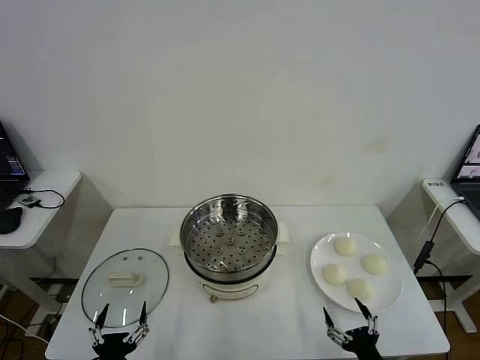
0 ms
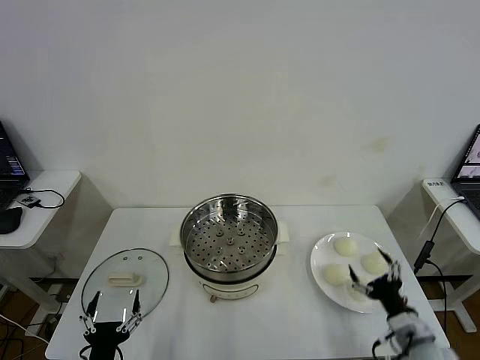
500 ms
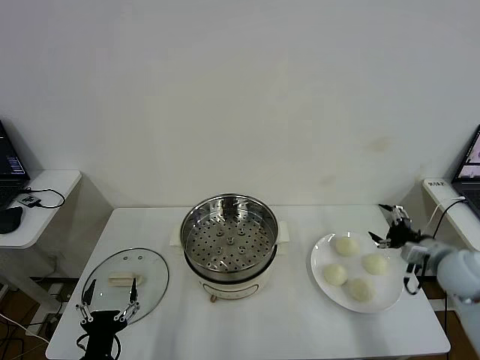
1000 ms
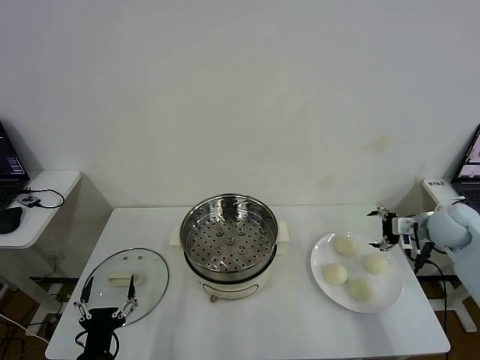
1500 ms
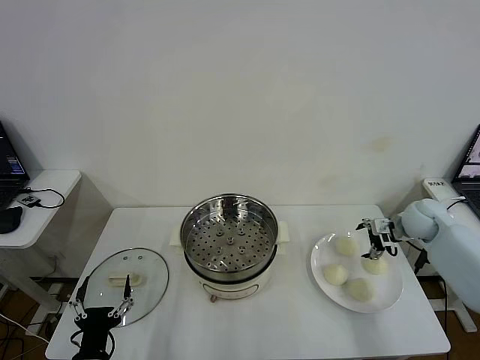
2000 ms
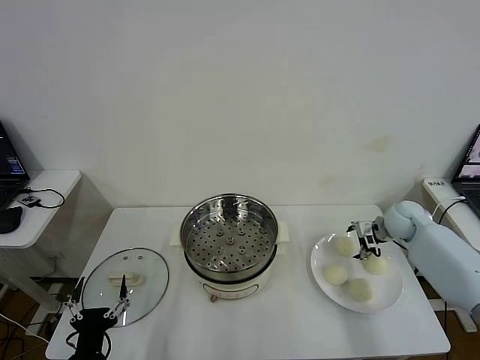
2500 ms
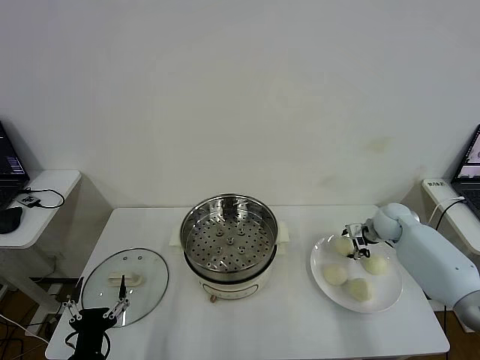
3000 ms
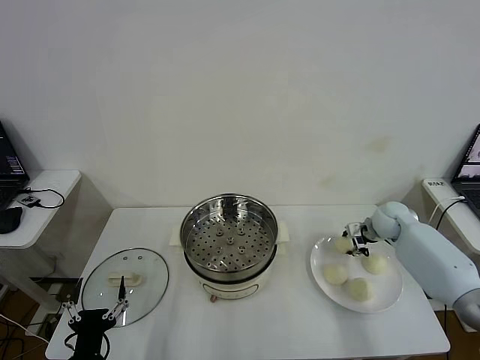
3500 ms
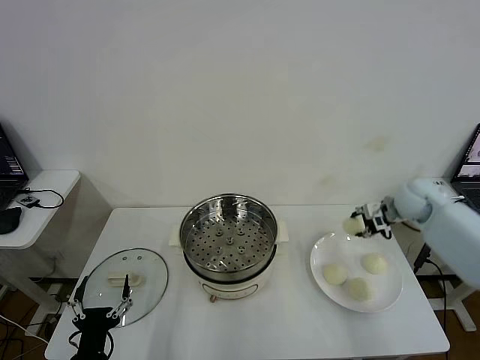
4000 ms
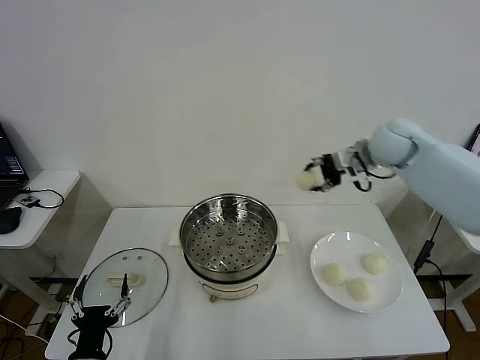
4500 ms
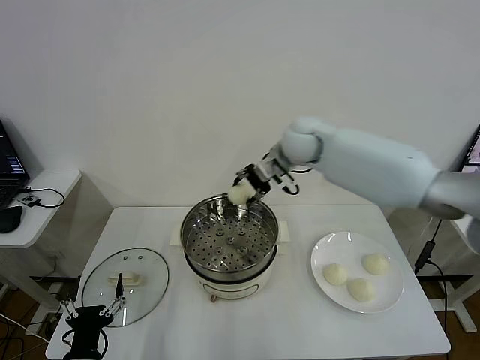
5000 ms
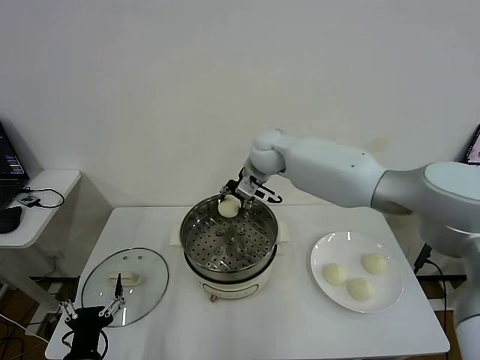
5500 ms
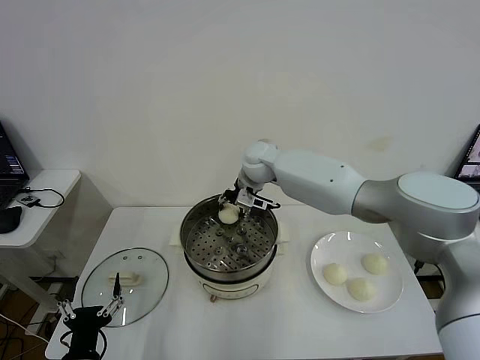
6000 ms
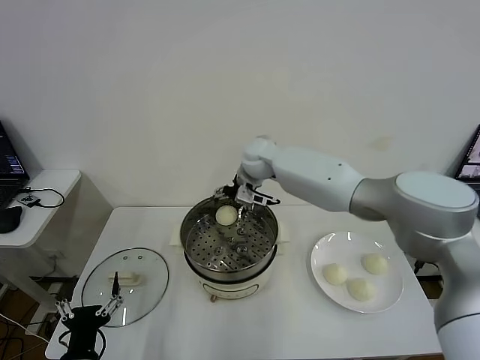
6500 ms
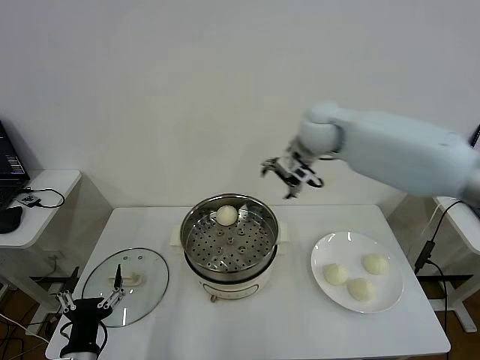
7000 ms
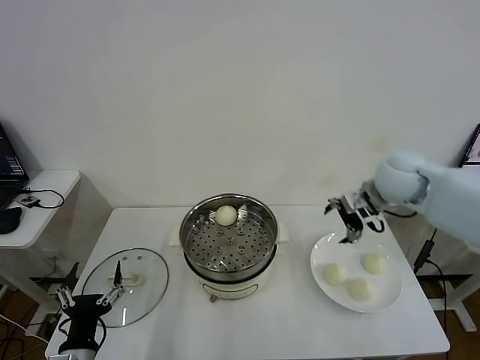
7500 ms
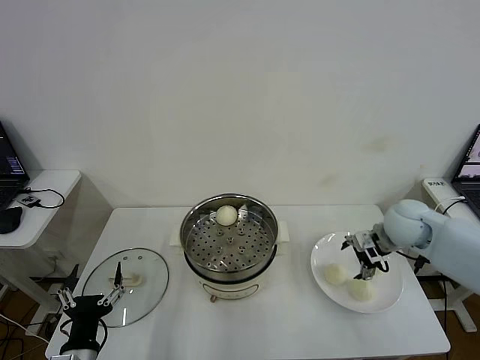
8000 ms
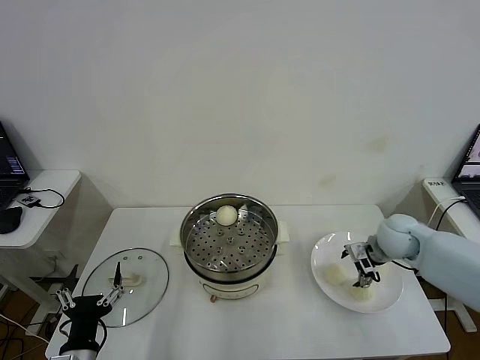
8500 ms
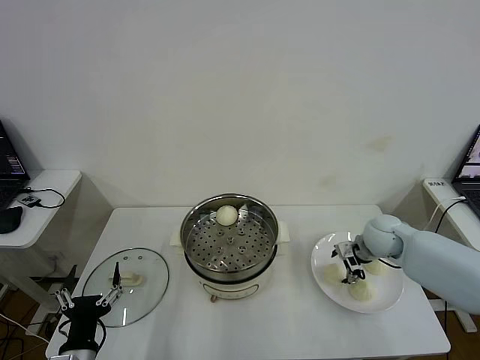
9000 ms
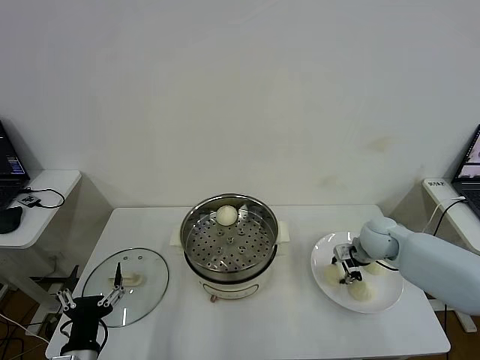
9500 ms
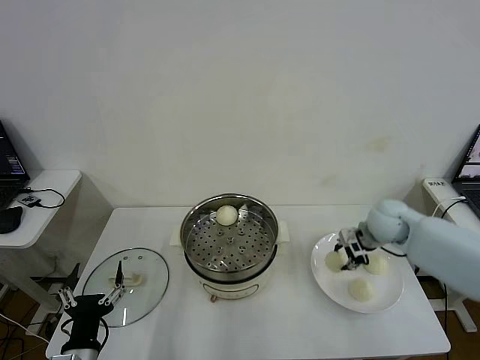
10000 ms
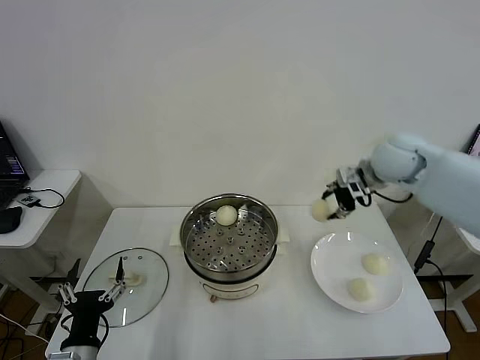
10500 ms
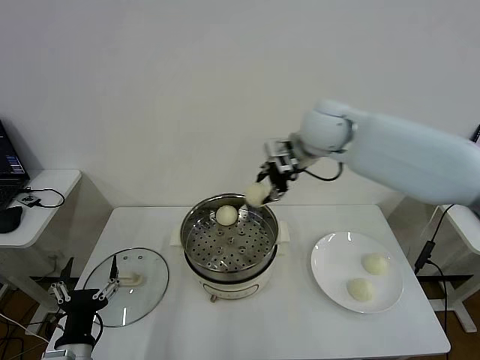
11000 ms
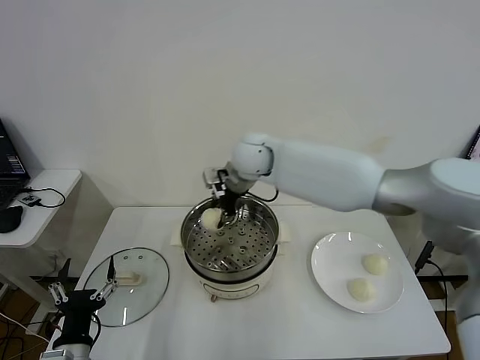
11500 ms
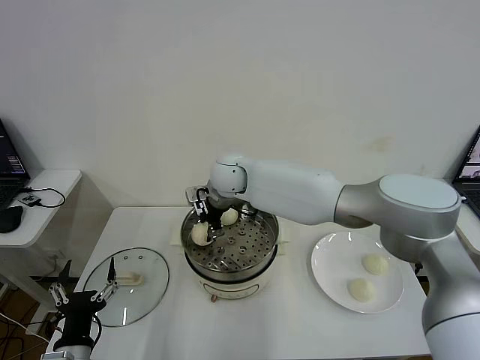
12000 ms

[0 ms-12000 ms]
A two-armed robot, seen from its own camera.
Step, 0 ms to 3000 ms: Grasp the baozi in the plate with right gripper.
Step, 3500 ms to 6000 ms: Place the baozi on the steamer with right gripper.
Step, 6500 ms to 9500 ms: Grasp the baozi in the plate with right gripper.
2000 ms to 4000 ms: The right gripper goes roughly 10 cm upward, and closes its fingers.
4000 ms to 6000 ms: The right gripper heads to the left, covering some 35 cm.
6000 ms to 8000 ms: The right gripper is displaced to the right and backward by some 35 cm, and opens up.
8000 ms to 10000 ms: The right gripper moves some 5 cm downward and comes back, and closes up.
10000 ms to 12000 ms: The right gripper heads to the left, covering about 35 cm.

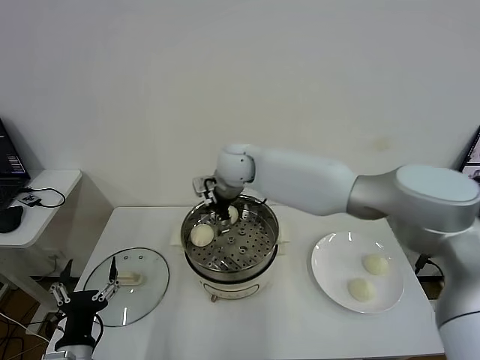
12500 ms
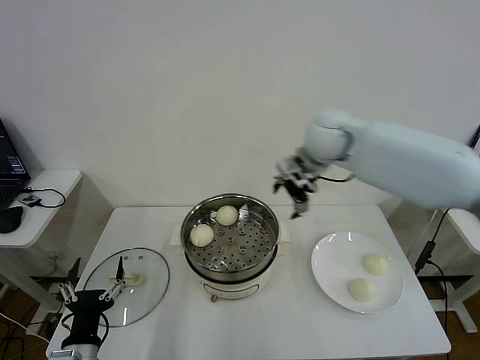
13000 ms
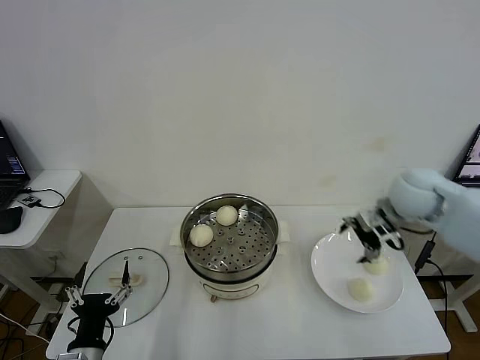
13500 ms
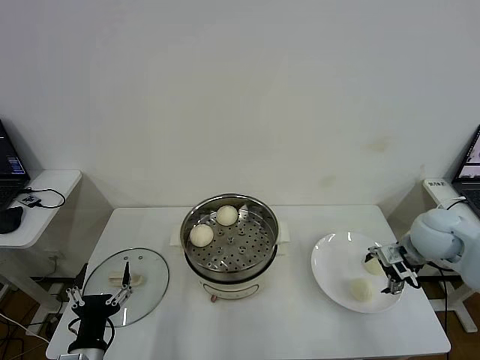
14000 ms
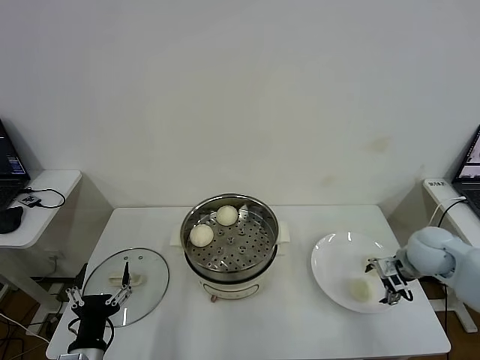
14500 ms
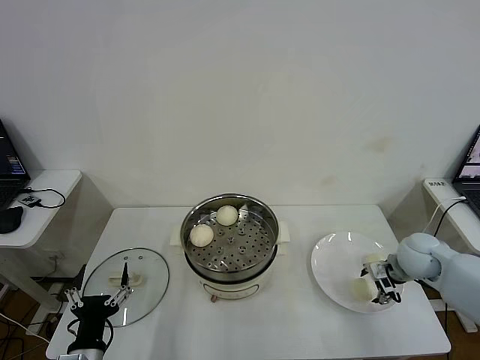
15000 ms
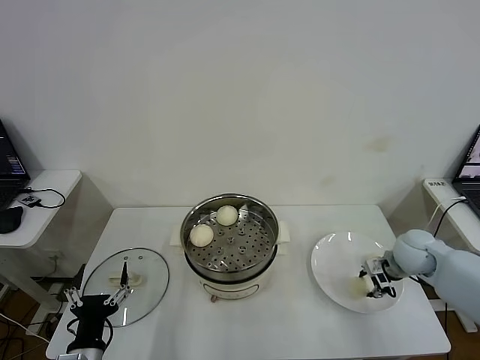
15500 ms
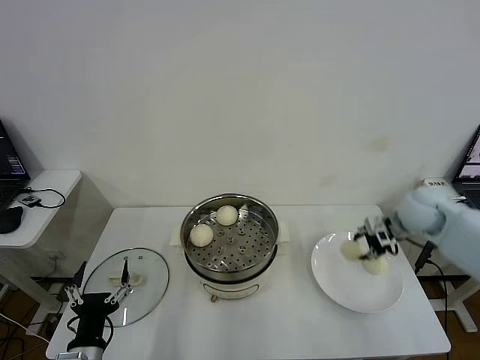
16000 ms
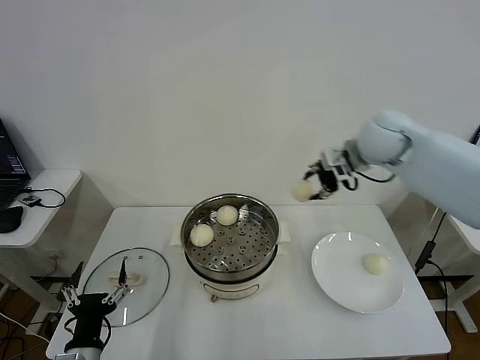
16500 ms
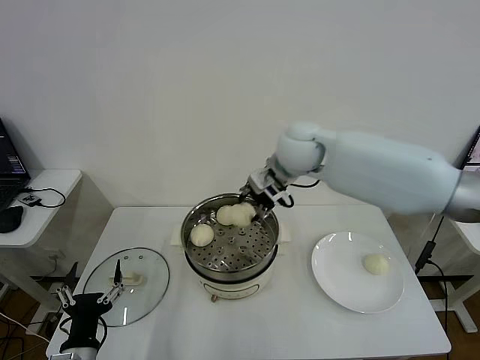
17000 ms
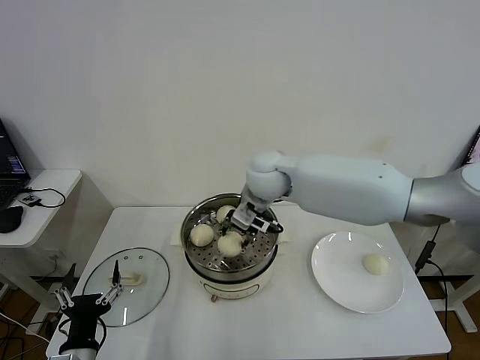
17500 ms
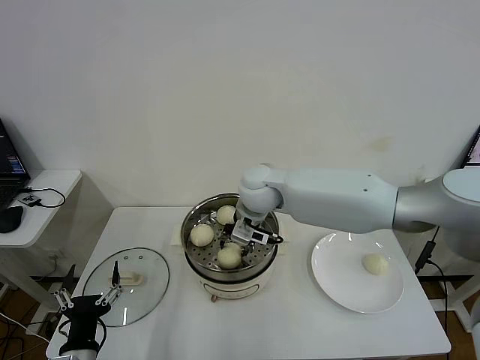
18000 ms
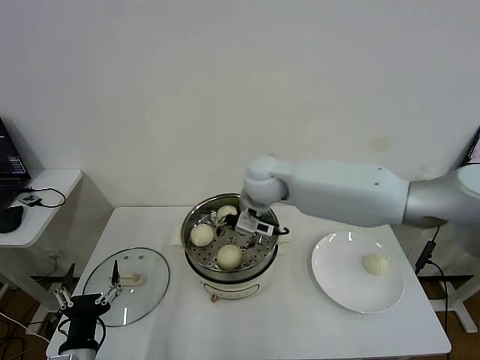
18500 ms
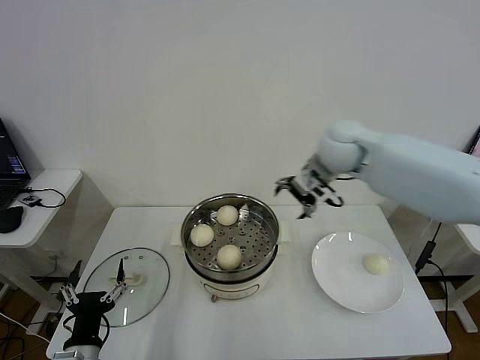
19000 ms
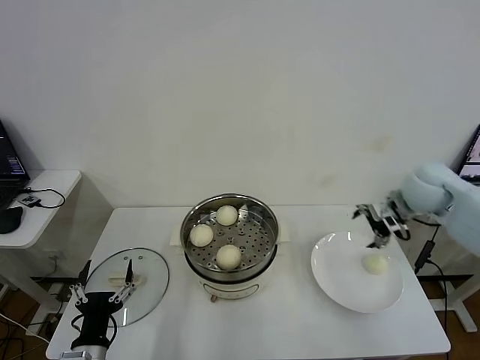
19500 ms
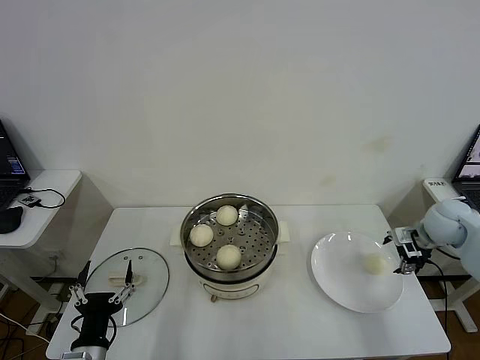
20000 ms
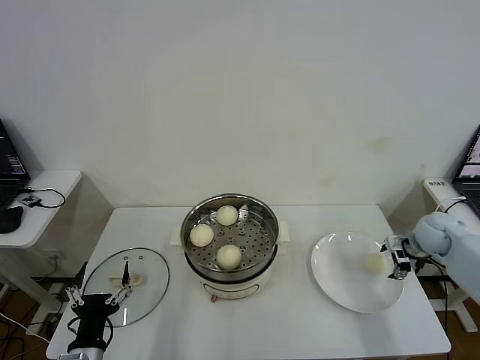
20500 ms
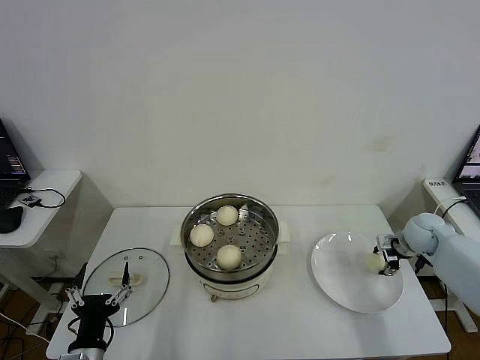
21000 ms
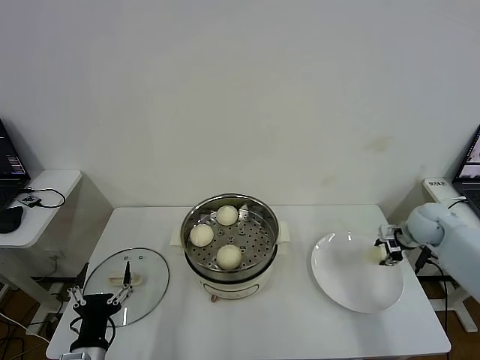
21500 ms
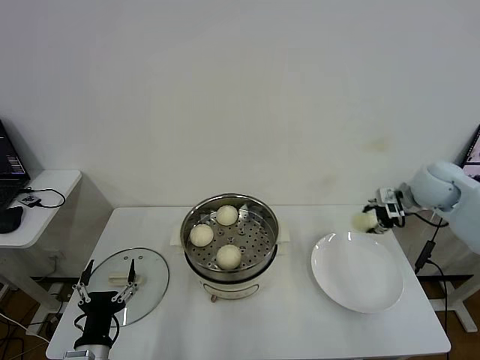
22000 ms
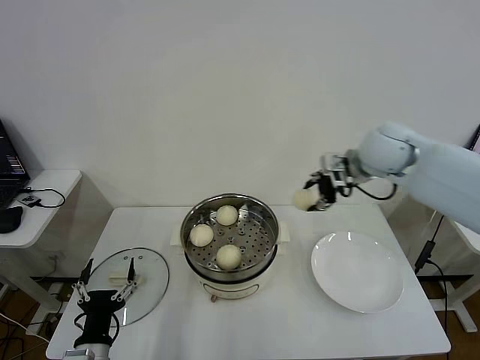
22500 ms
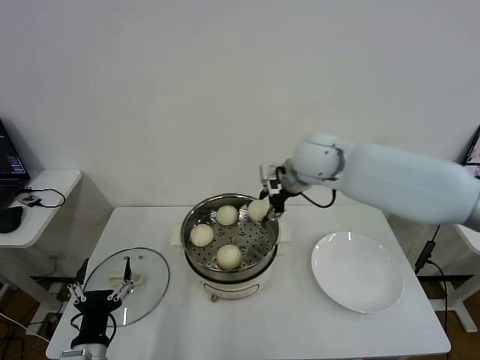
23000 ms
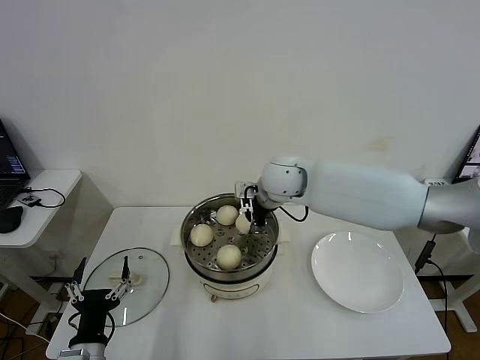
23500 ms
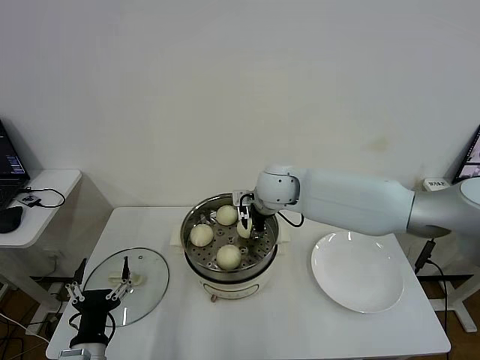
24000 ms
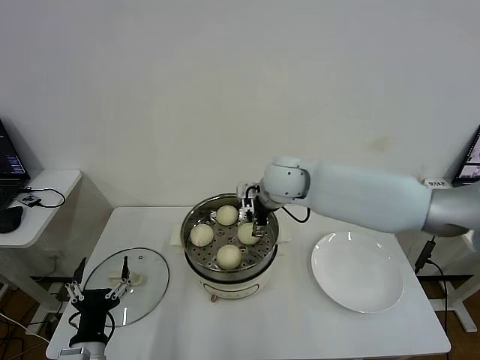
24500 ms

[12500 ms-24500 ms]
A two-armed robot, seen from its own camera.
Step, 12500 ms to 15500 ms: Grasp the baozi in the plate with right gripper.
Step, 16000 ms to 18000 ms: Place the baozi on the steamer with right gripper.
Step, 18500 ms to 21000 ms: Grasp the baozi in the plate with right gripper.
Step, 21500 ms to 24000 ms: Place the baozi on the steamer with right gripper.
12500 ms to 14500 ms: The right gripper is displaced to the right by about 40 cm.
14500 ms to 16500 ms: The right gripper goes approximately 30 cm upward, to the left and forward, and closes its fingers.
16500 ms to 18500 ms: The right gripper is displaced to the left and downward by some 20 cm, and opens up.
18500 ms to 20500 ms: The right gripper travels to the right by some 40 cm.
20500 ms to 22500 ms: The right gripper moves upward and to the left, about 30 cm, and closes up.
22500 ms to 24500 ms: The right gripper goes approximately 20 cm to the left and downward, and opens its fingers.

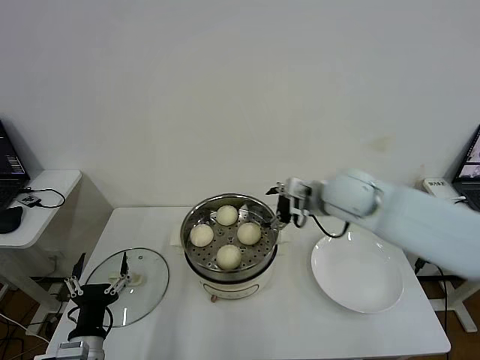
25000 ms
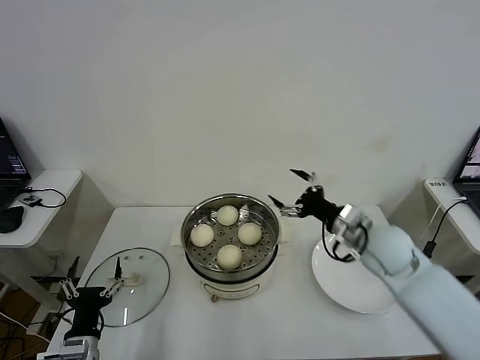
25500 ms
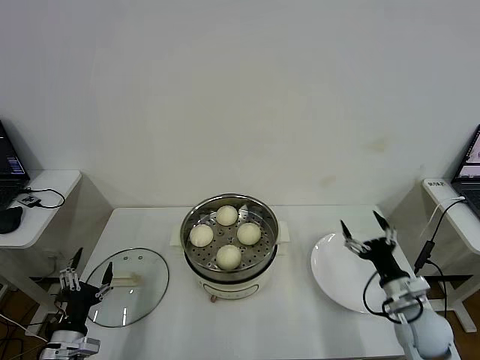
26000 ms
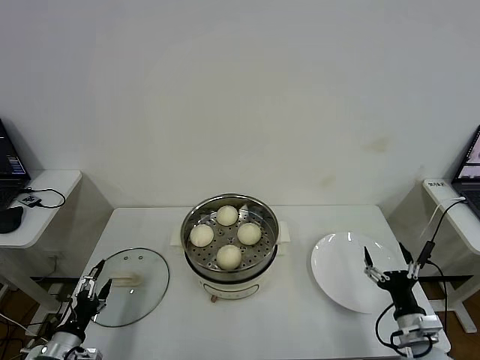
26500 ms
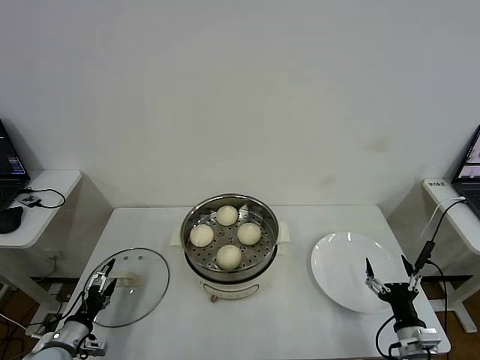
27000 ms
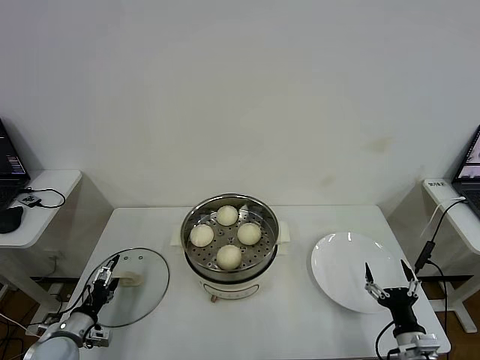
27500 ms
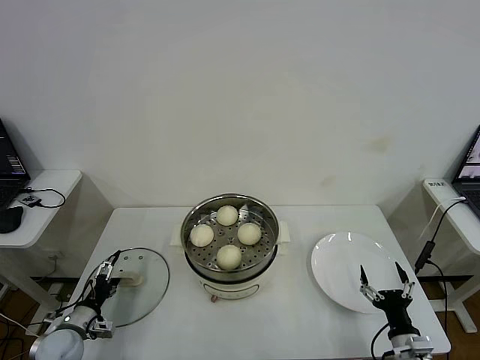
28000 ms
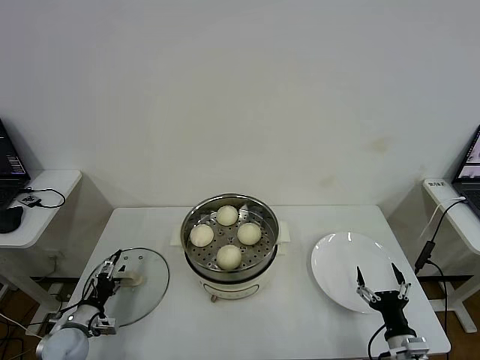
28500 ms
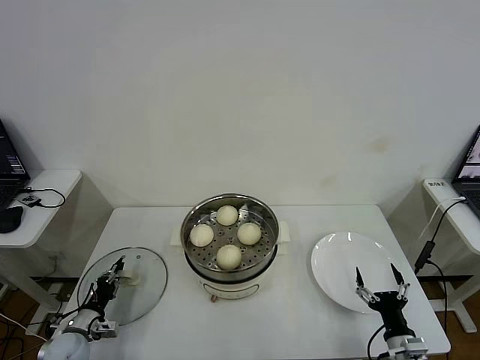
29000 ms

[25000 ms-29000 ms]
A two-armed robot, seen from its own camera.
25000 ms to 27000 ms: The left gripper goes about 15 cm to the left, downward and forward. Meanwhile the right gripper moves downward, backward and to the right, approximately 40 cm.
27000 ms to 29000 ms: The left gripper moves about 5 cm, and closes.
